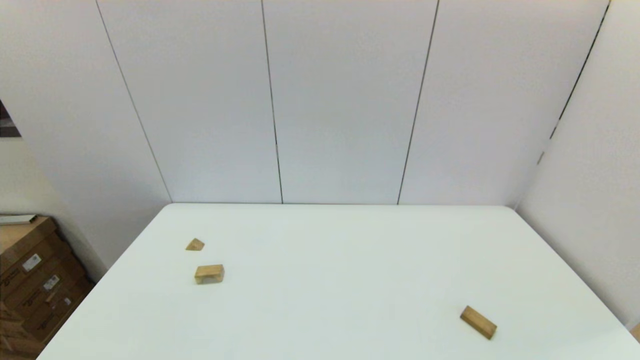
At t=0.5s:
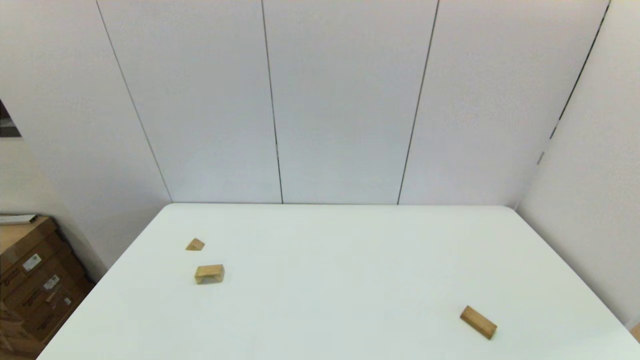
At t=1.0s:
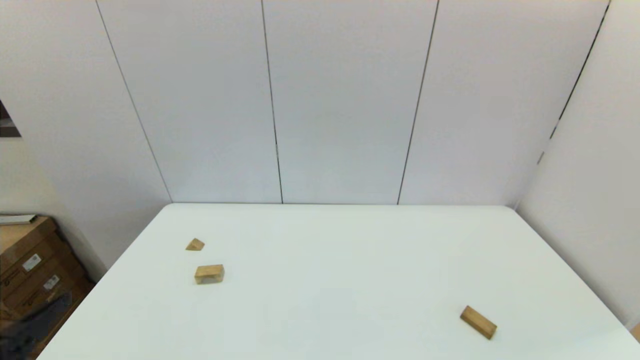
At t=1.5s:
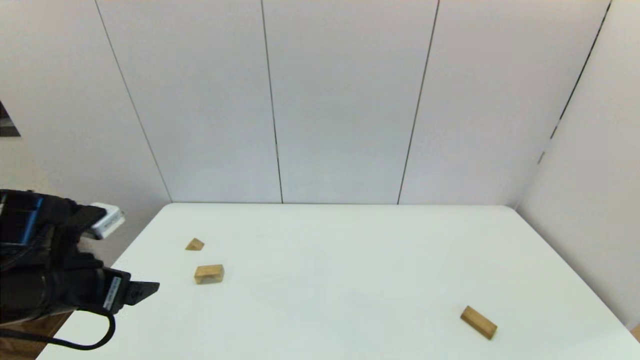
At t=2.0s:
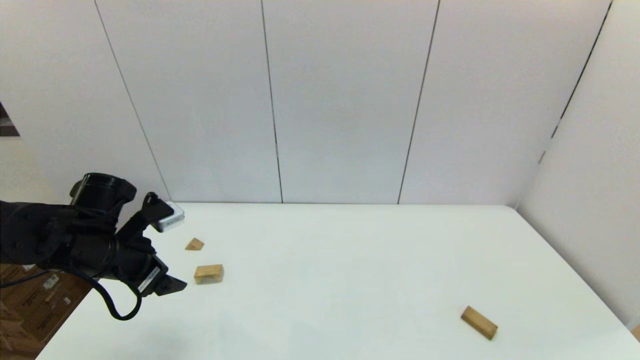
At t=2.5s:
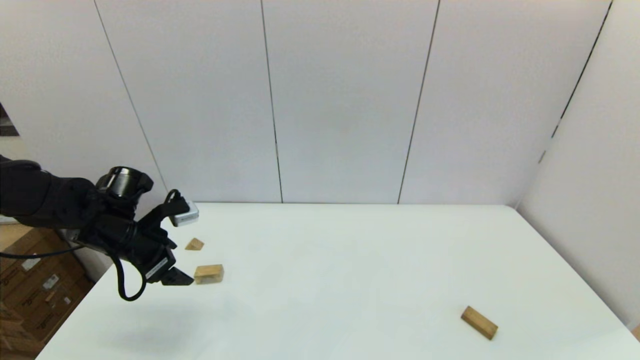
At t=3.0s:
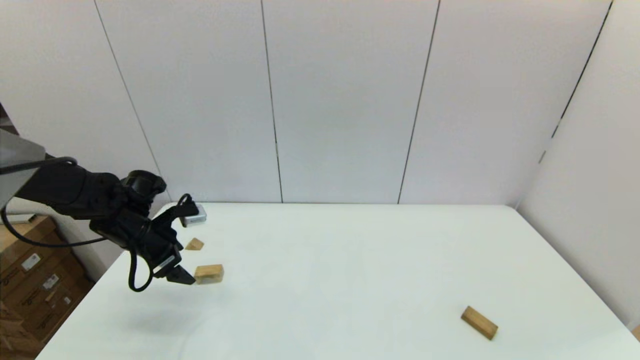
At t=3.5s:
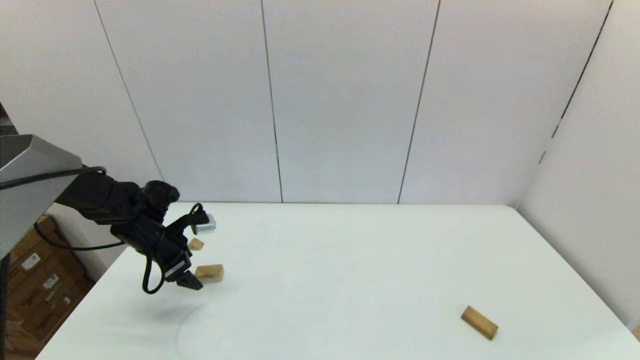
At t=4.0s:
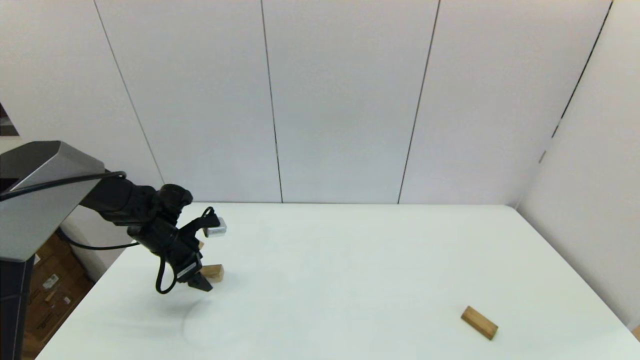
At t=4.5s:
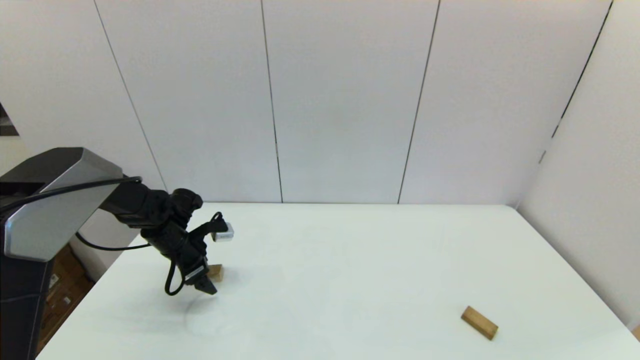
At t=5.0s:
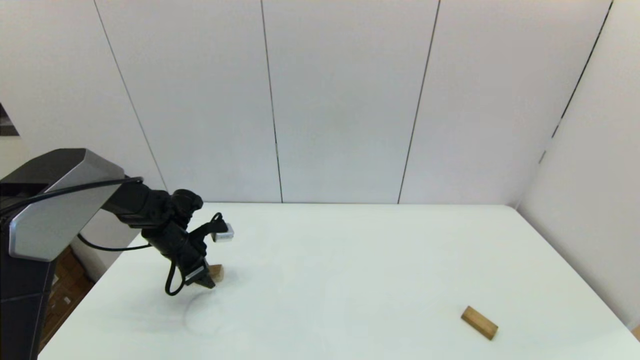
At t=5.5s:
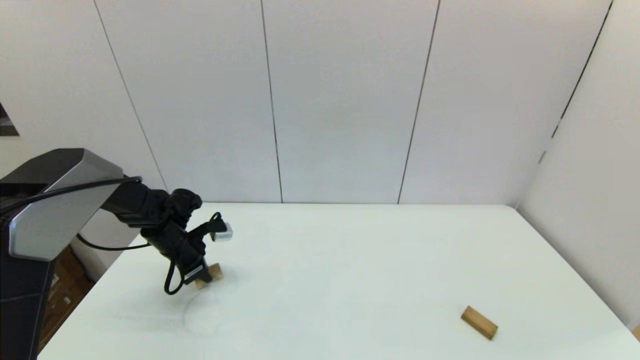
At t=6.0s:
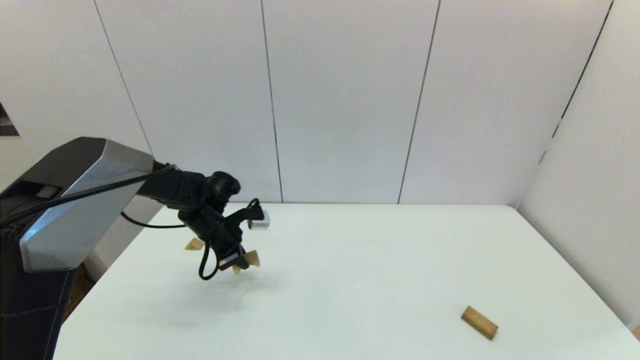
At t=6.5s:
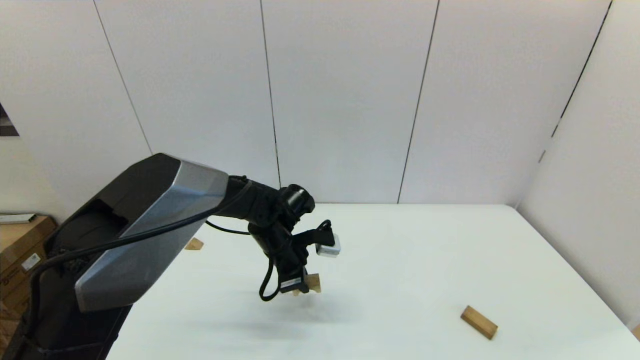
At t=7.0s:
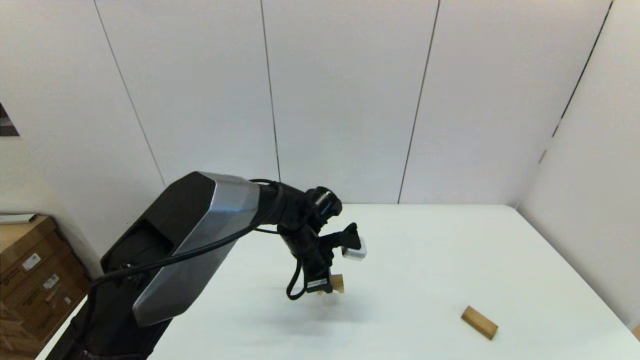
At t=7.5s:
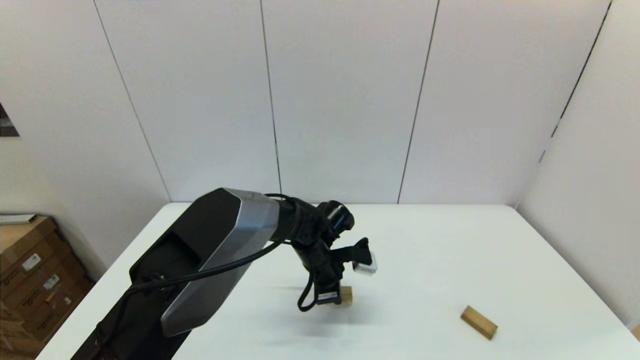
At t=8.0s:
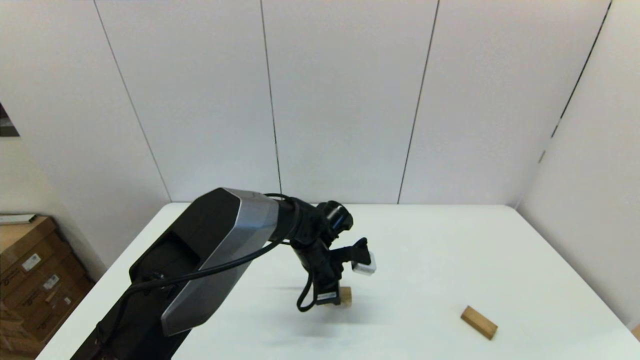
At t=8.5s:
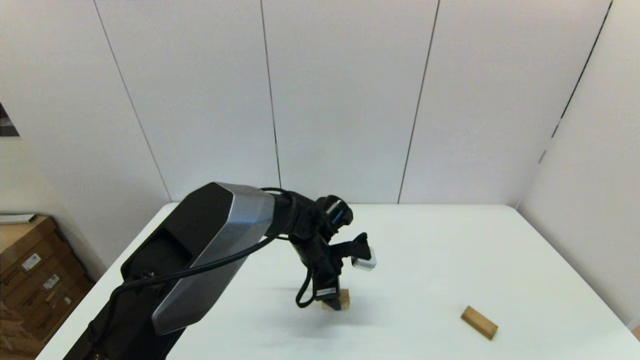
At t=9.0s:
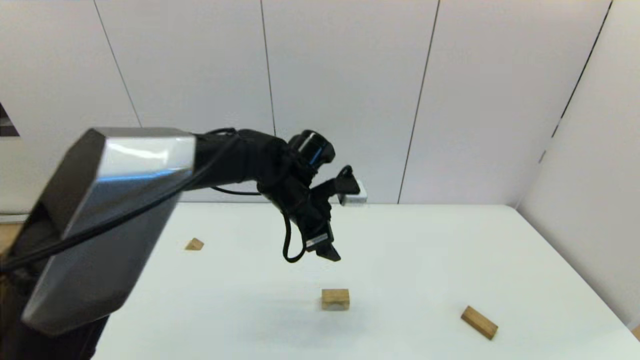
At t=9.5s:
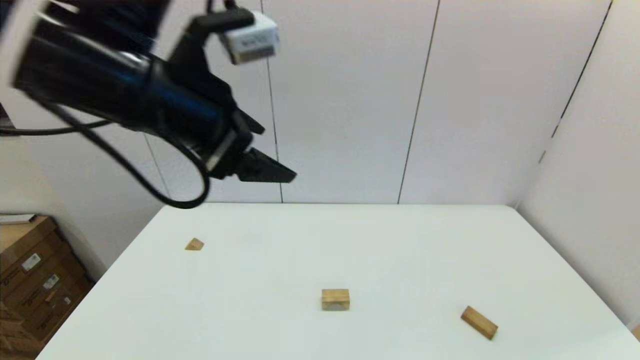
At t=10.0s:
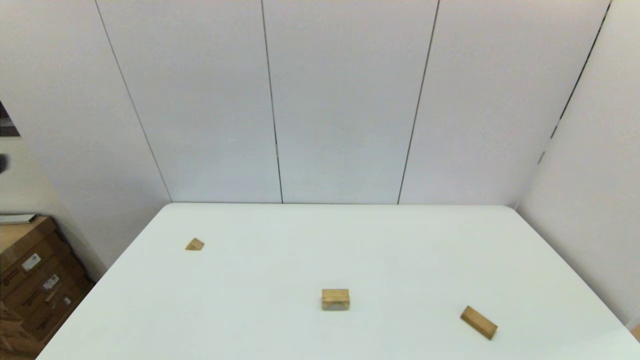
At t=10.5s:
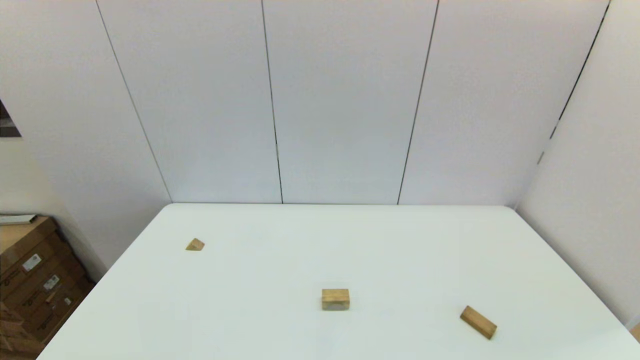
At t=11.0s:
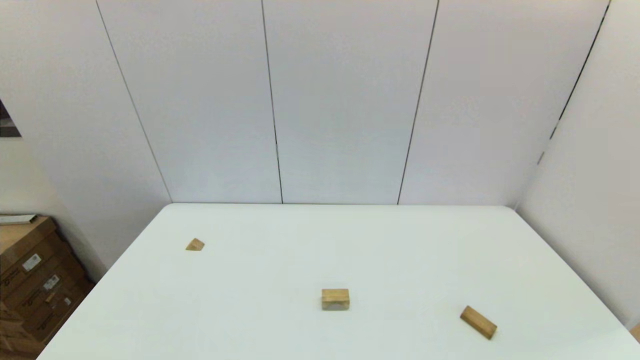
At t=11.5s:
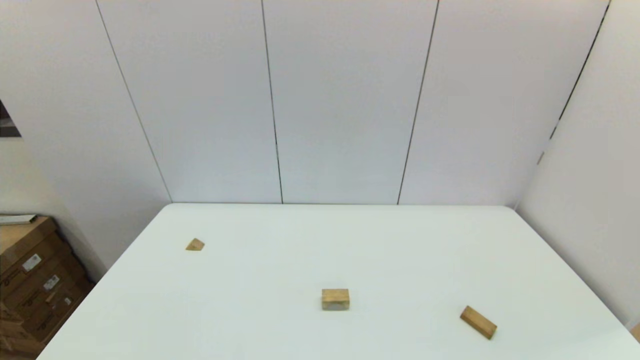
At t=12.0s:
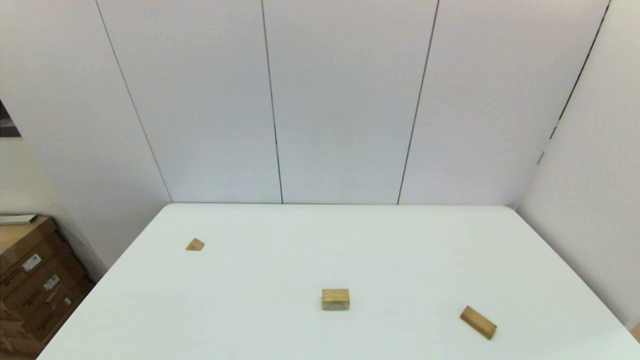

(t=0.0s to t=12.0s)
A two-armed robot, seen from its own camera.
Task of the whole recording: place the arched building blocks in the center of the table, set up the rectangular building blocks, and then set up the triangular building blocks.
Step, t=1.0s - t=5.0s: Grasp the arch-shaped block with the left gripper.
Step, t=5.5s - t=8.0s: Place the arch-shaped block in the center of view with the left gripper.
t=0.0s - t=2.0s: The left gripper shifts some 30 cm forward.
t=2.0s - t=4.0s: The left gripper goes approximately 15 cm forward and downward.
t=4.0s - t=6.0s: The left gripper heads to the right, covering some 10 cm, and closes its fingers.
t=6.0s - t=8.0s: The left gripper travels to the right by about 20 cm.
t=8.0s - t=10.0s: The left gripper shifts some 60 cm upward, backward and to the left, and opens up.

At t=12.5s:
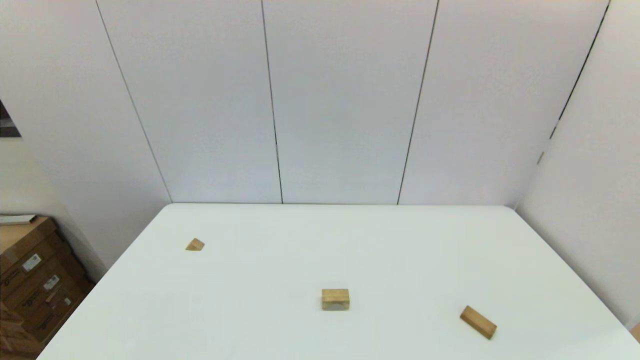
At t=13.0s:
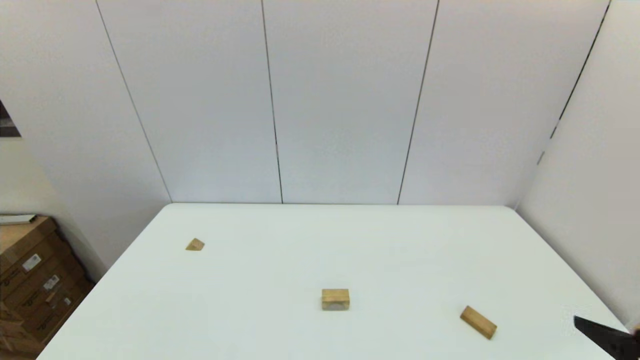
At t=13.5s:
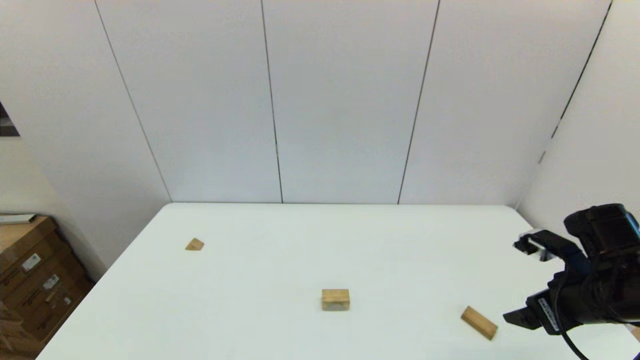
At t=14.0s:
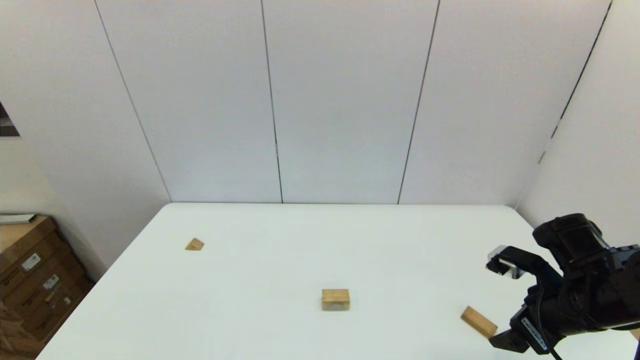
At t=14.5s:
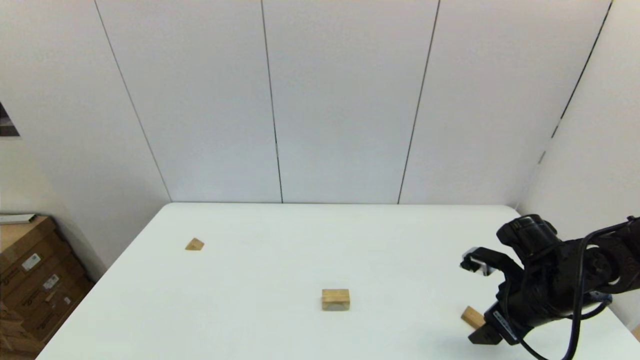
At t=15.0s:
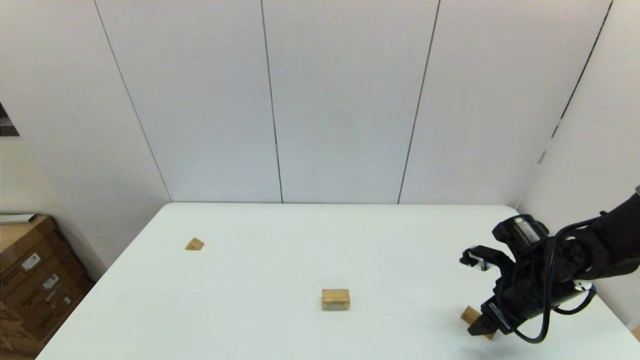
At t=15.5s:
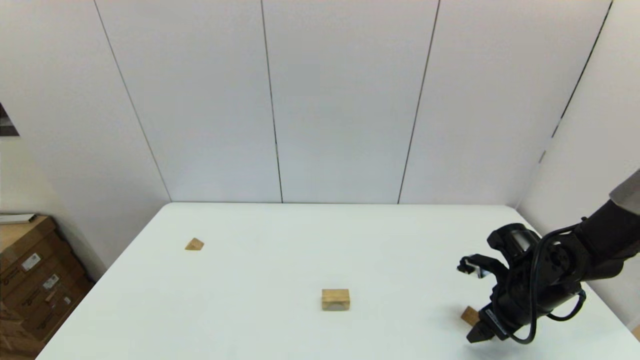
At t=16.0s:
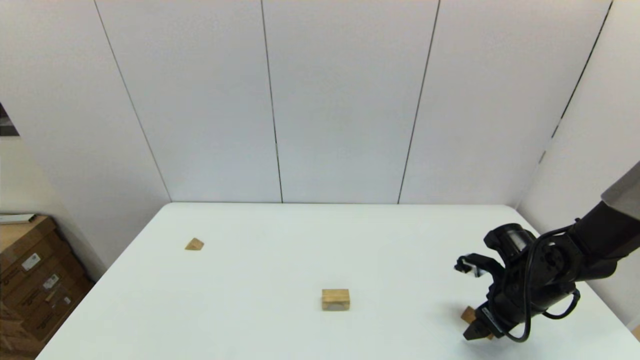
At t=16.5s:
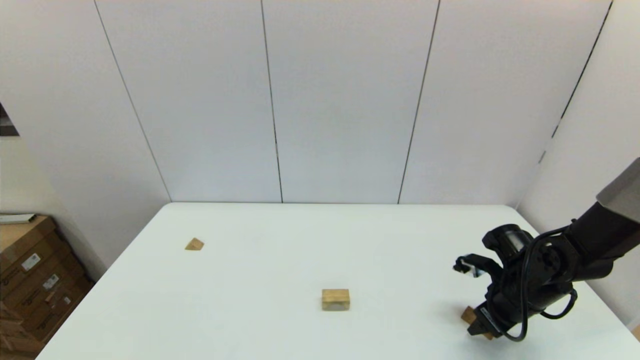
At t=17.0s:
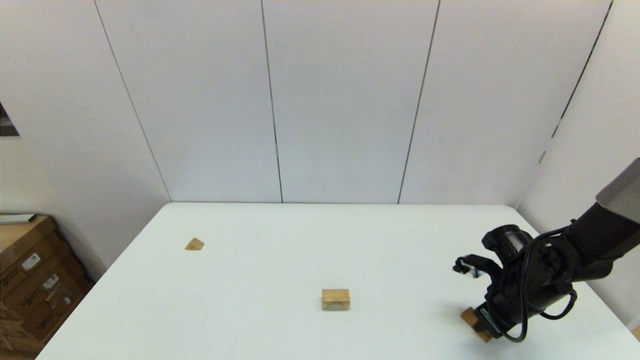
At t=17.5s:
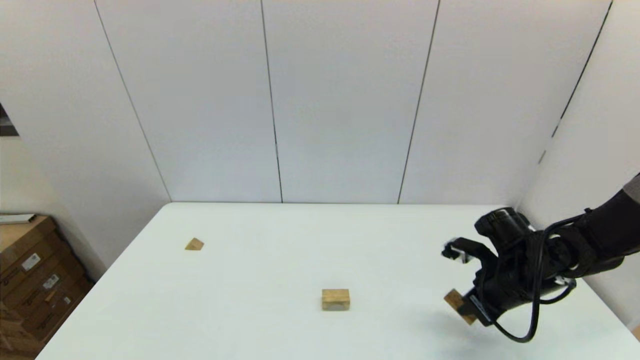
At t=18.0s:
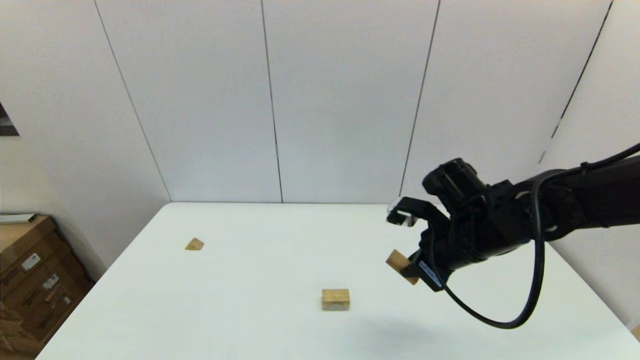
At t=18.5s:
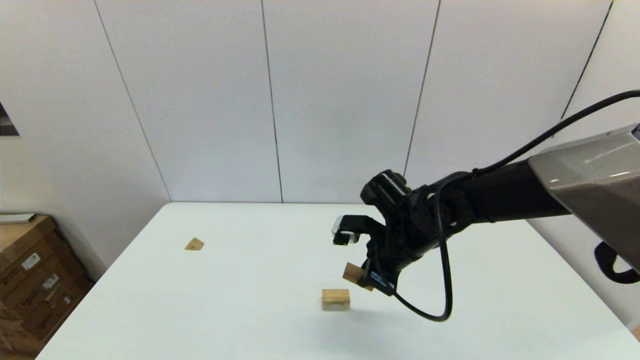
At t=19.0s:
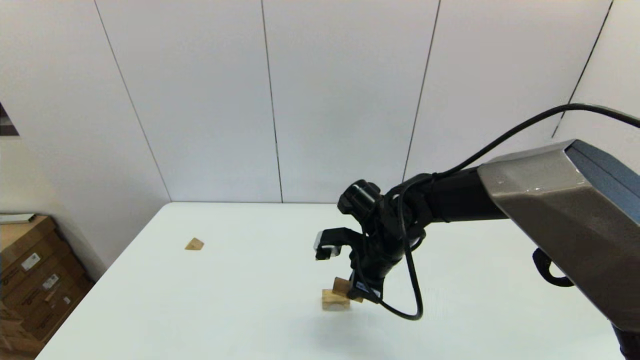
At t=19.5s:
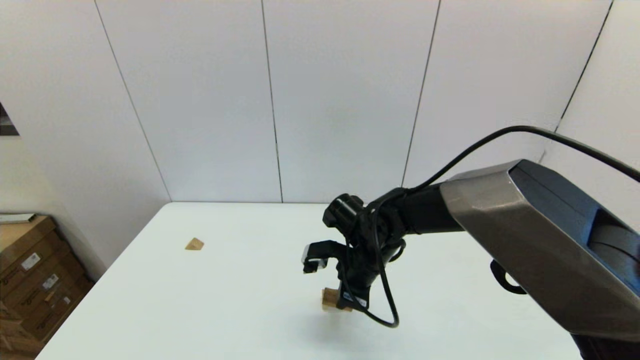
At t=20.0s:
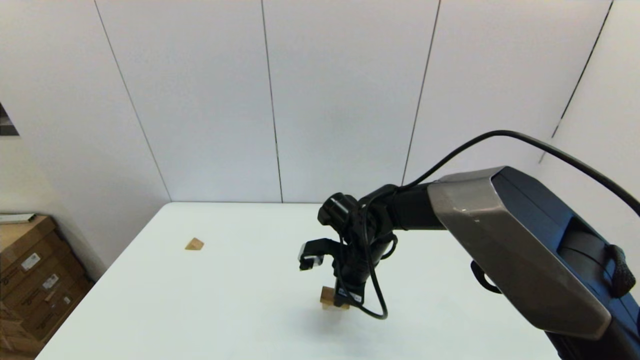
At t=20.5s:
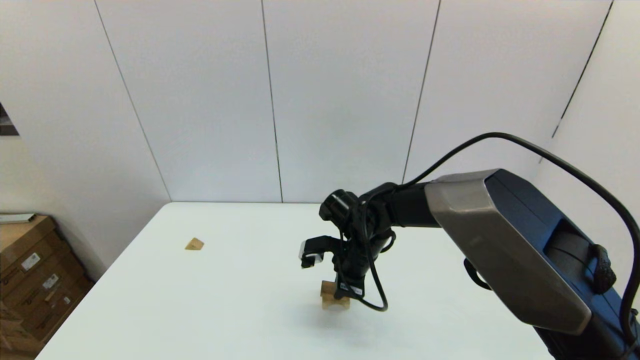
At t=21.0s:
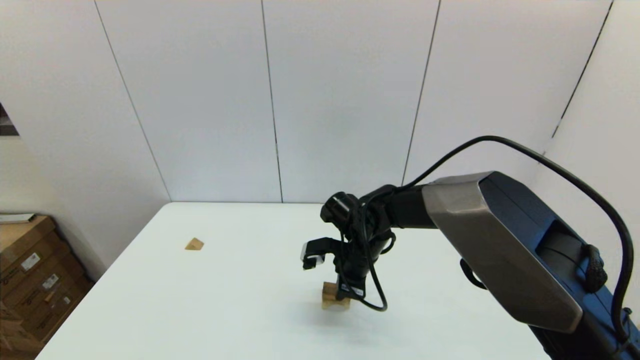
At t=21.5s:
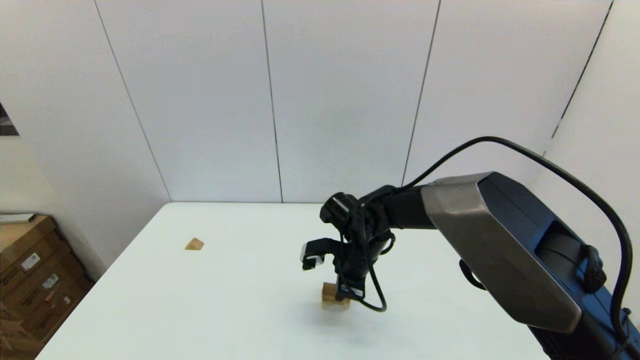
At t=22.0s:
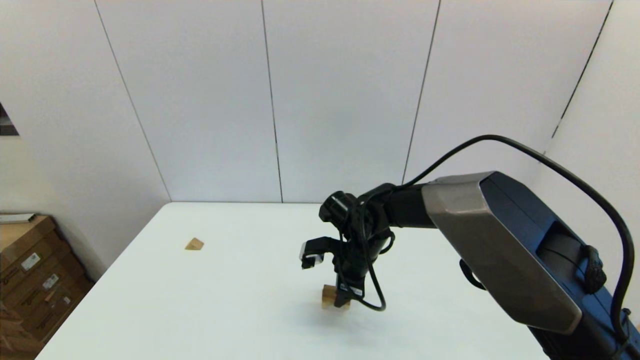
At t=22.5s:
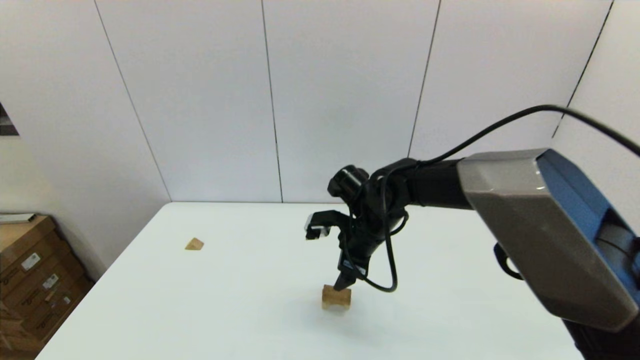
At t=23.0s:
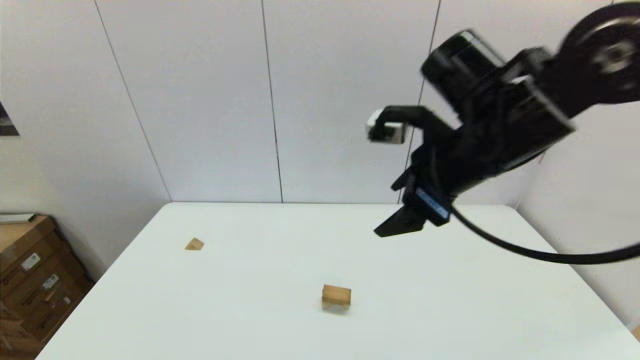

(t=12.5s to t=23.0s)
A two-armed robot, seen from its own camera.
Task of the whole recording: place the arched building blocks in the center of the table, set up the rectangular building blocks, and then set up the triangular building blocks.
Step, t=12.5s - t=16.5s: Grasp the box-shaped block with the right gripper.
Step, t=17.0s - t=22.0s: Place the box-shaped block onto the arch-shaped block with the right gripper.
t=12.5s - t=14.5s: The right gripper shifts about 30 cm forward.
t=14.5s - t=16.5s: The right gripper travels downward by approximately 5 cm, and closes.
t=16.5s - t=19.0s: The right gripper heads to the left, covering approximately 25 cm, and closes its fingers.
t=19.0s - t=21.0s: The right gripper shifts by some 5 cm.
t=21.0s - t=23.0s: The right gripper travels upward by approximately 25 cm, and opens up.
